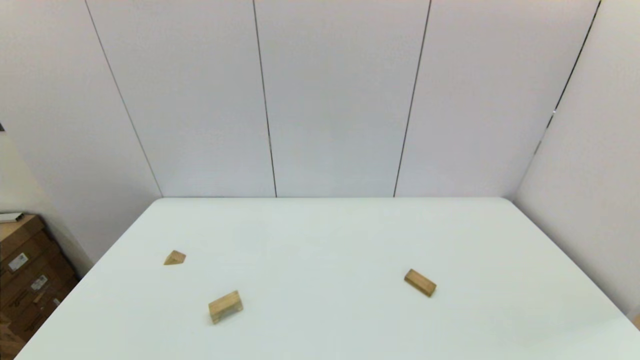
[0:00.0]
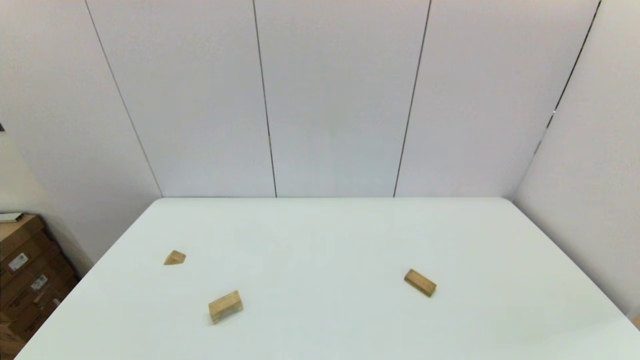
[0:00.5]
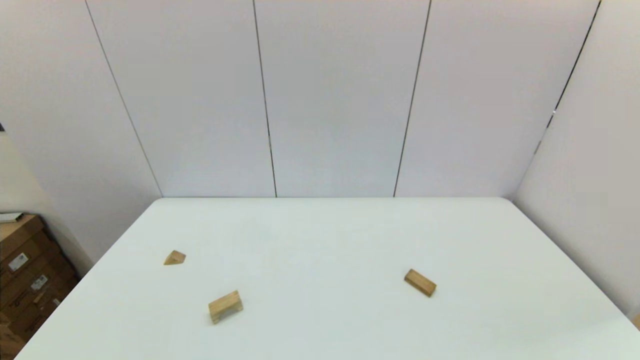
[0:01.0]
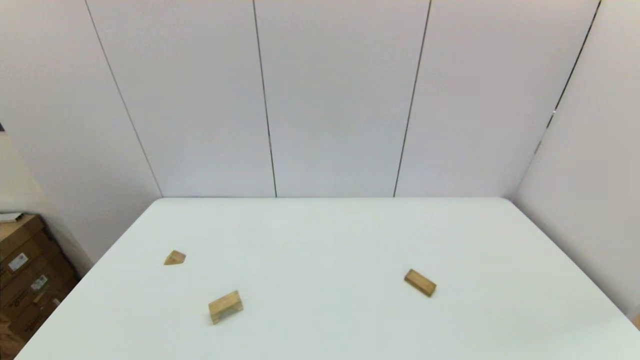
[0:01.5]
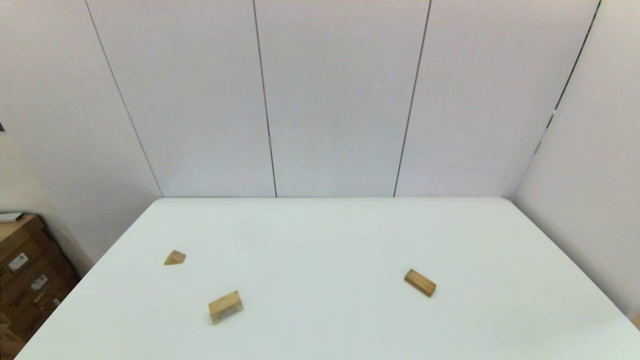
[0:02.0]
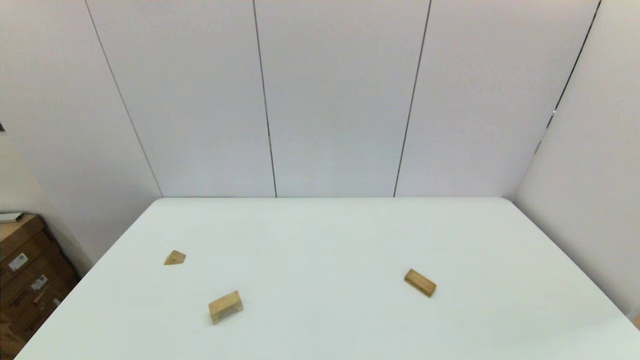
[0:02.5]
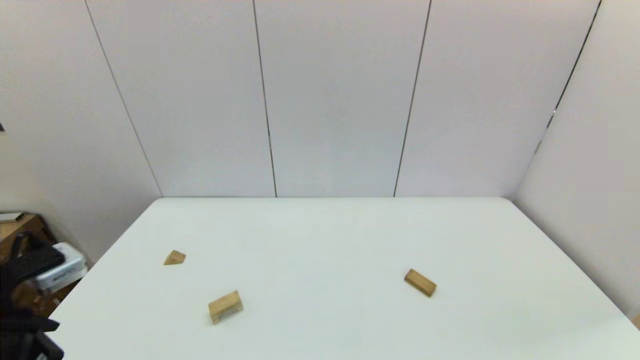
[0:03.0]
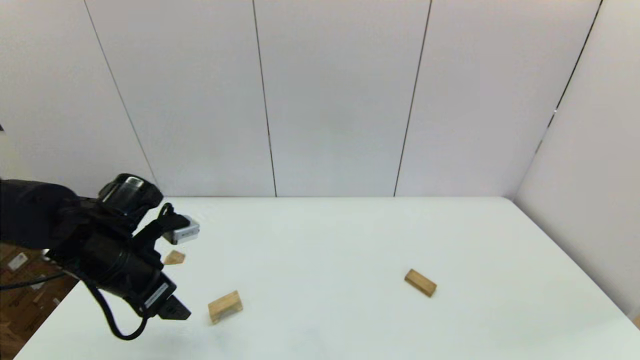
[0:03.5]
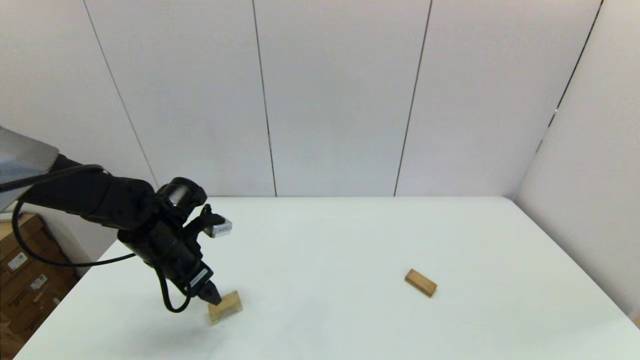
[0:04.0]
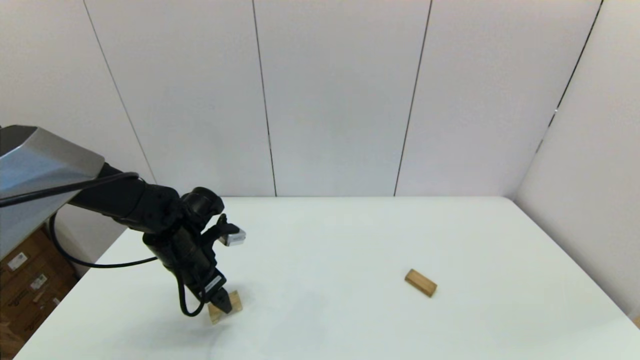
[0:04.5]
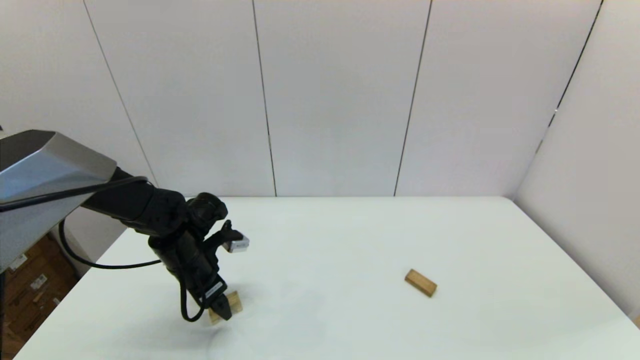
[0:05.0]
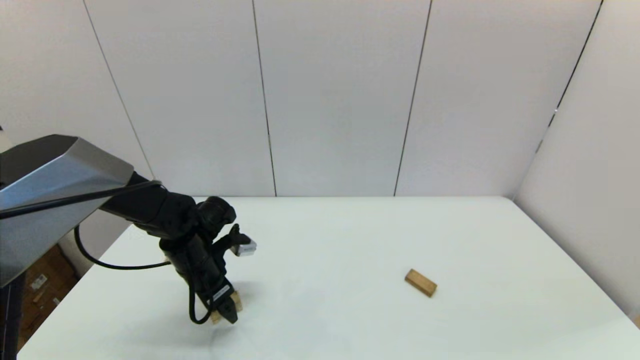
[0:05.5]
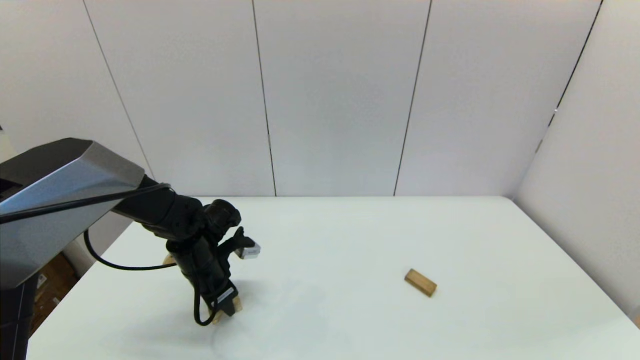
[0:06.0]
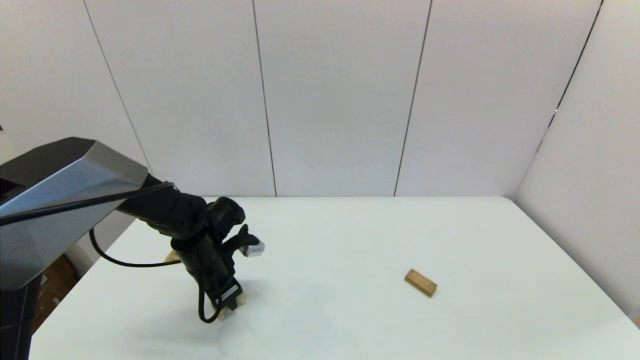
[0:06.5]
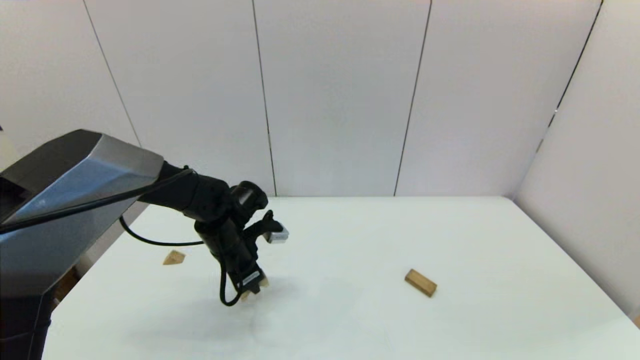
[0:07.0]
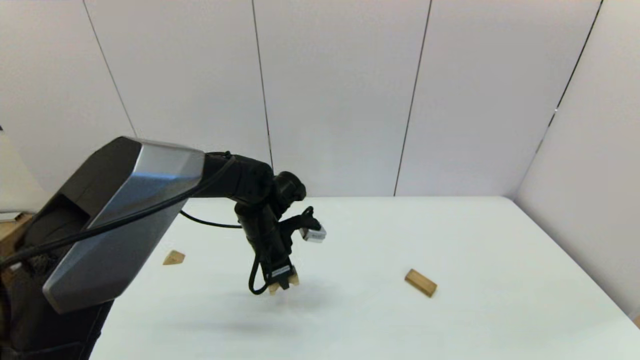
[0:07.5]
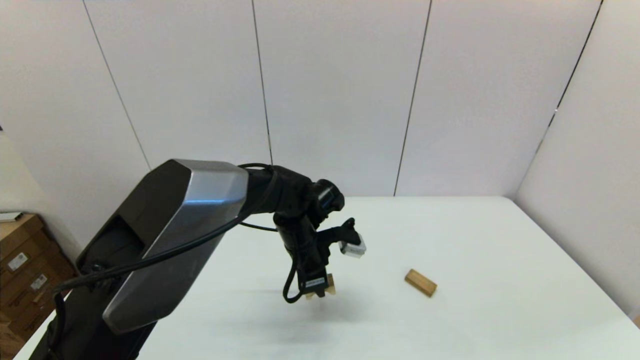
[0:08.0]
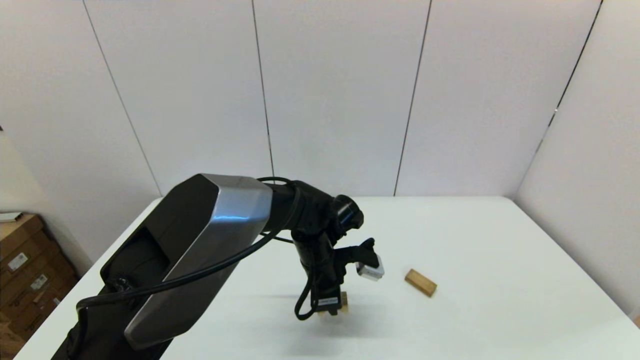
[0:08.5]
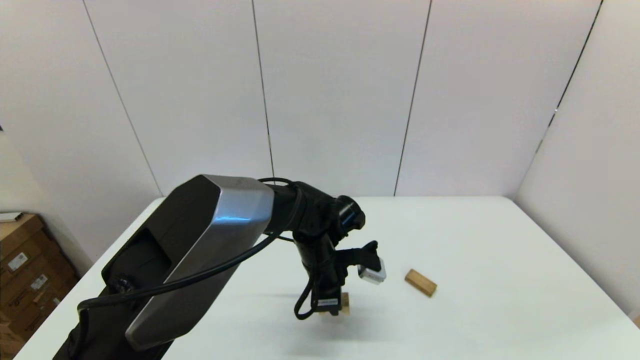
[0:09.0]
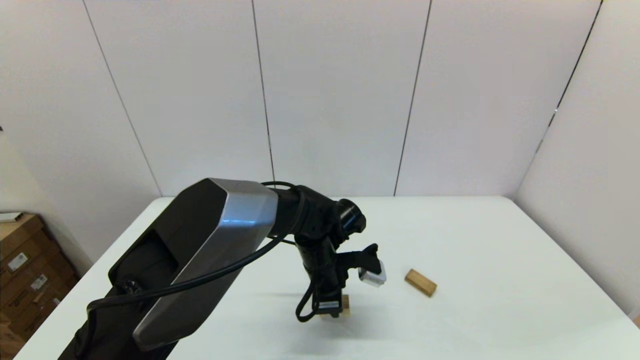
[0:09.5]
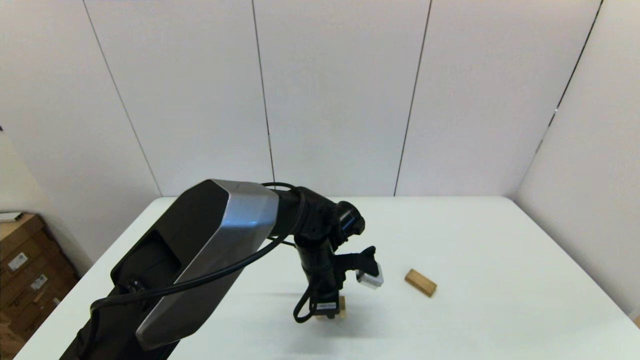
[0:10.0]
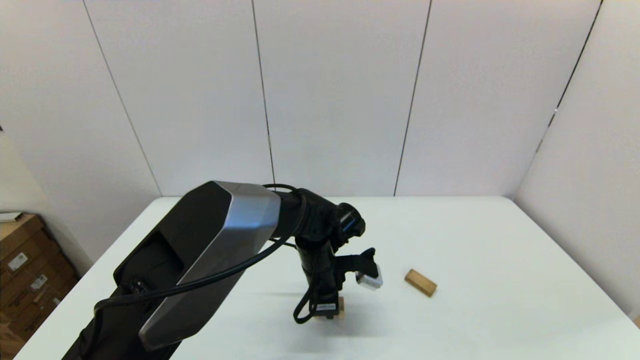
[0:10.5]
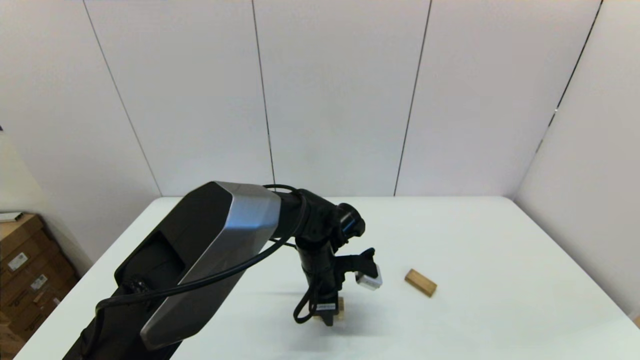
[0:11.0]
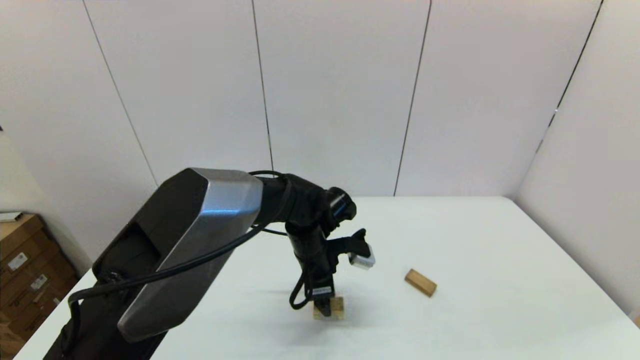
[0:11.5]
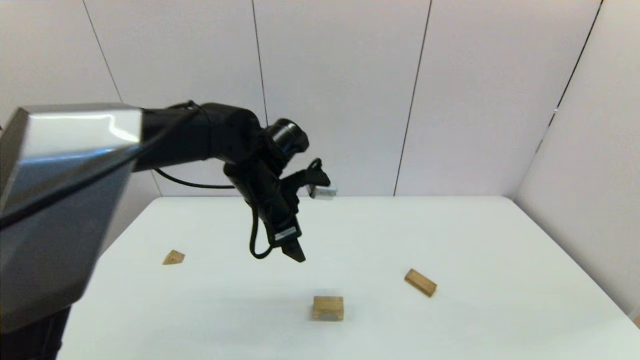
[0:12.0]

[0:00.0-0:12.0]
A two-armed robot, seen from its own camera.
Task of the whole recording: place the arched building blocks in the center of the table, set up the rectangular building blocks, and then set up the triangular building blocks.
Step, 3.0 to 6.0 s: Grasp the arch-shaped block with the left gripper.
Step, 6.5 to 11.0 s: Place the arch-shaped block in the center of view with the left gripper.
2.0 to 4.0 s: The left gripper goes approximately 35 cm forward.
4.0 to 6.0 s: The left gripper moves roughly 5 cm, and closes its fingers.
6.0 to 8.0 s: The left gripper moves to the right, some 20 cm.
8.0 to 10.0 s: The grippers stay close to where they were, moving slightly.
10.0 to 12.0 s: The left gripper heads upward and to the left, covering some 20 cm, and opens its fingers.

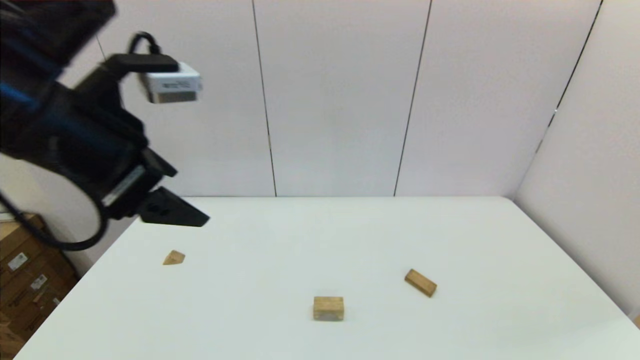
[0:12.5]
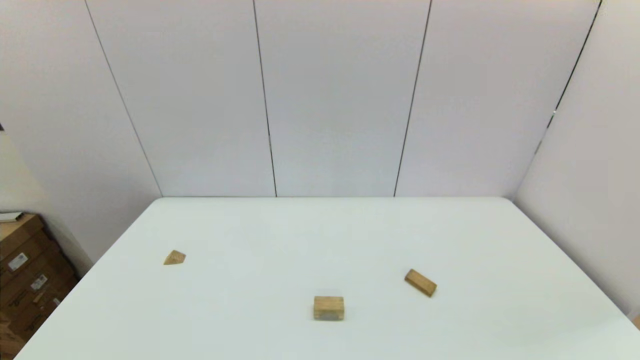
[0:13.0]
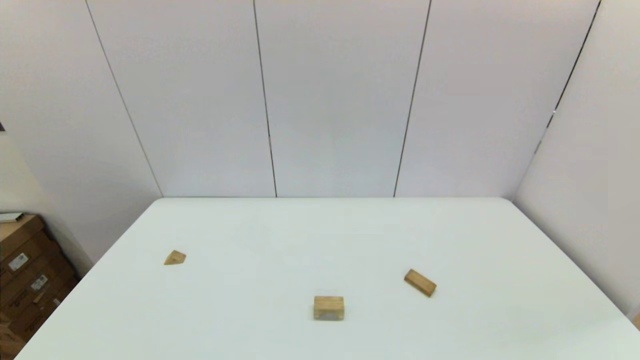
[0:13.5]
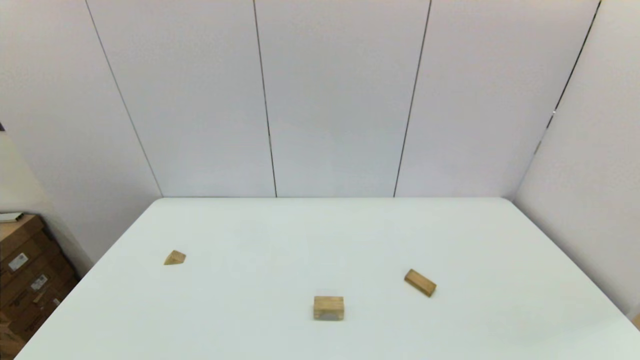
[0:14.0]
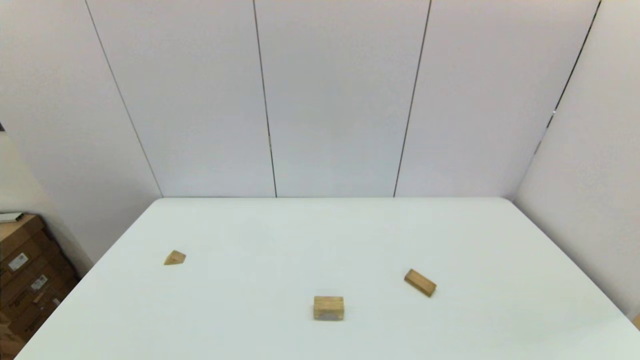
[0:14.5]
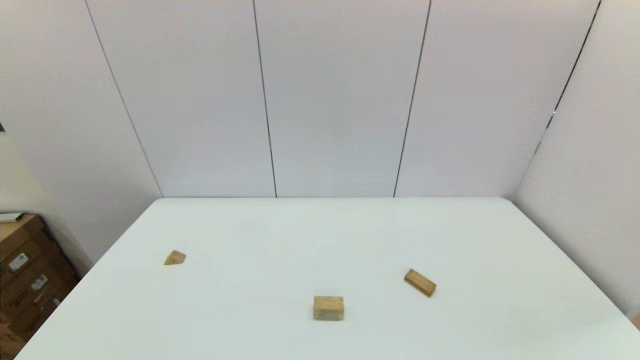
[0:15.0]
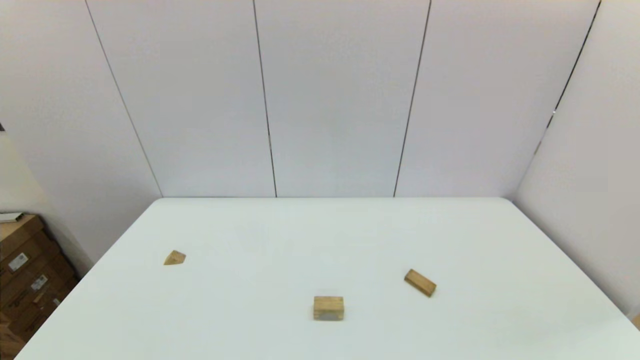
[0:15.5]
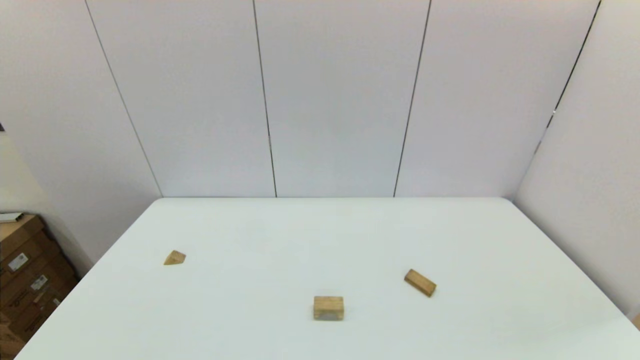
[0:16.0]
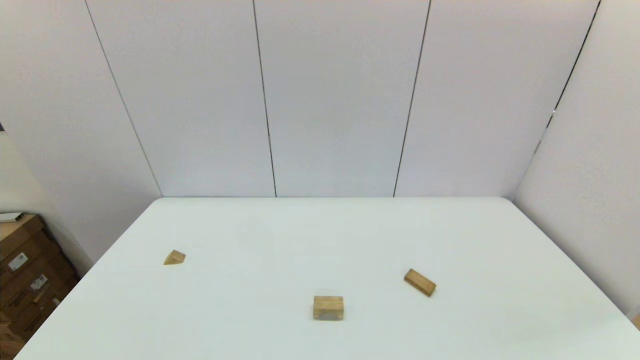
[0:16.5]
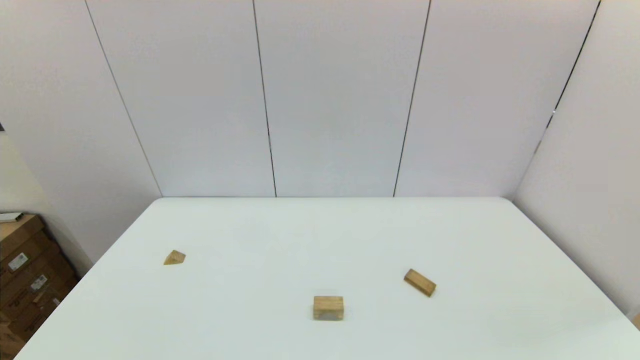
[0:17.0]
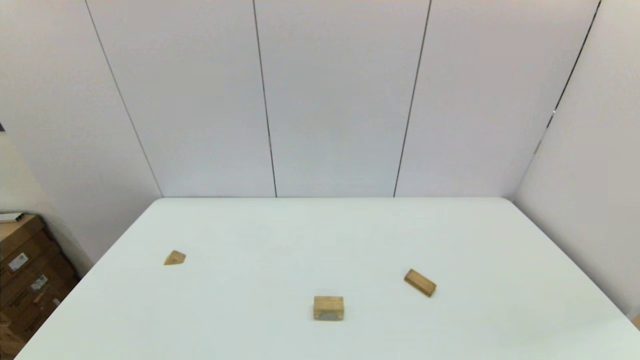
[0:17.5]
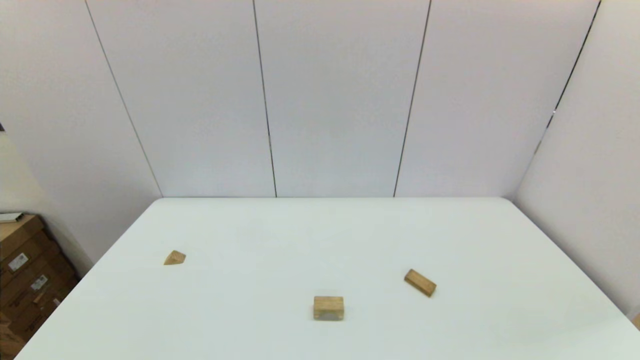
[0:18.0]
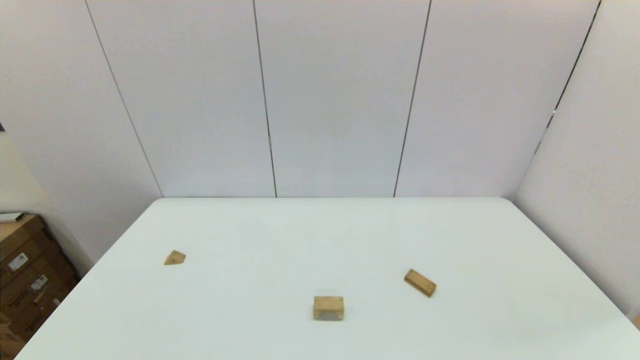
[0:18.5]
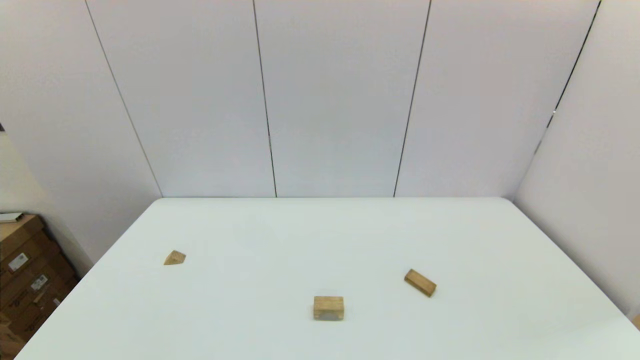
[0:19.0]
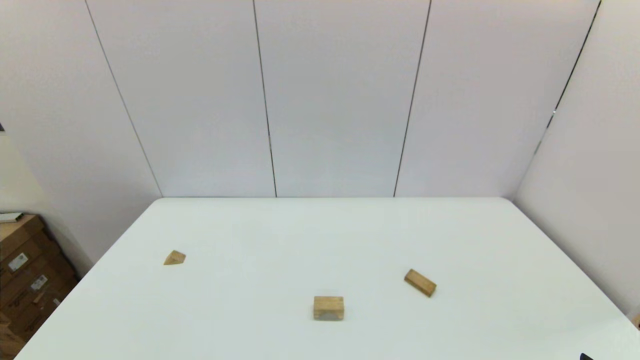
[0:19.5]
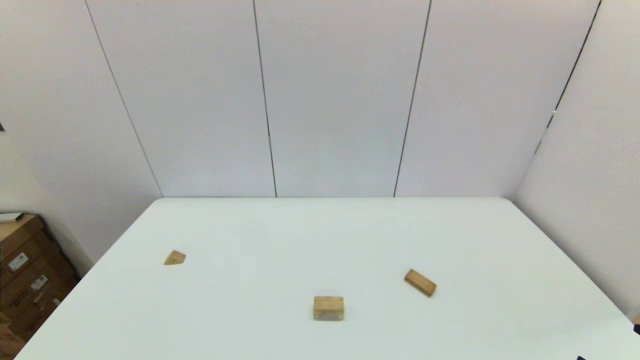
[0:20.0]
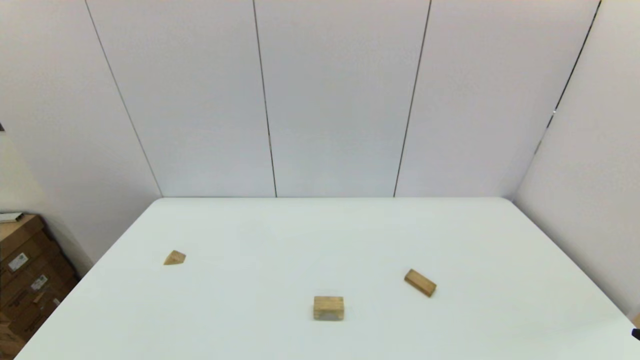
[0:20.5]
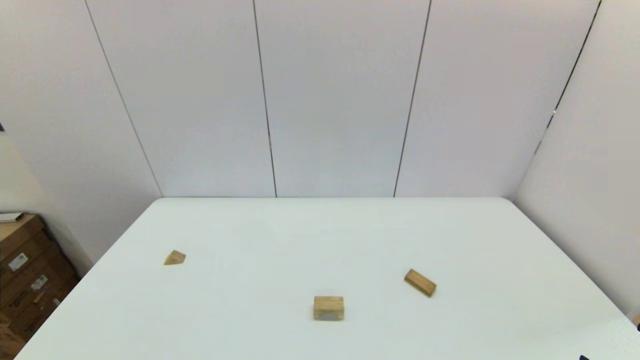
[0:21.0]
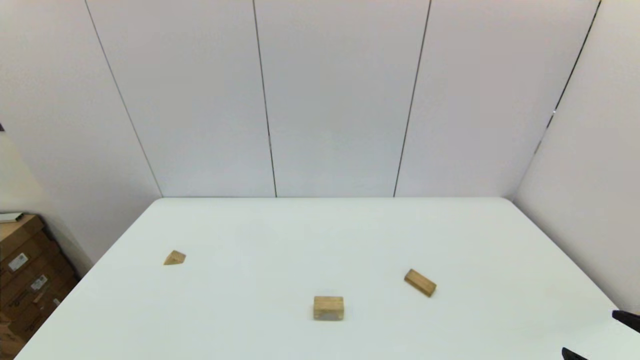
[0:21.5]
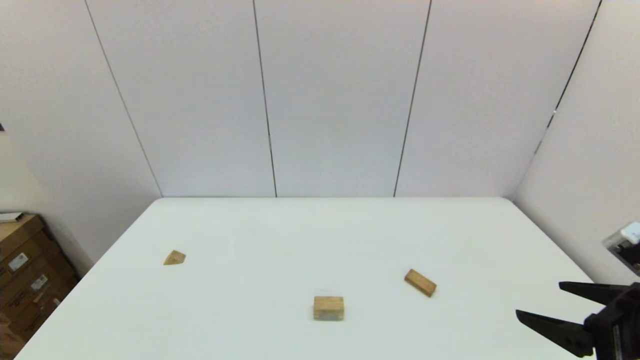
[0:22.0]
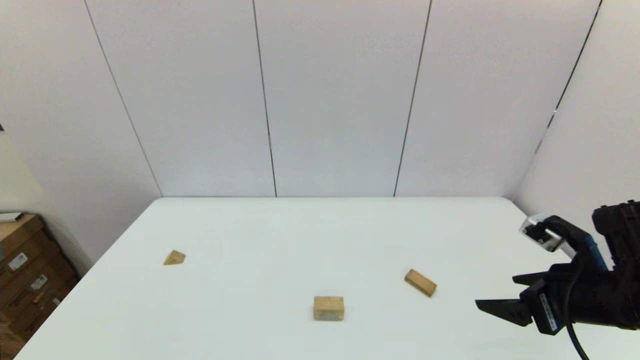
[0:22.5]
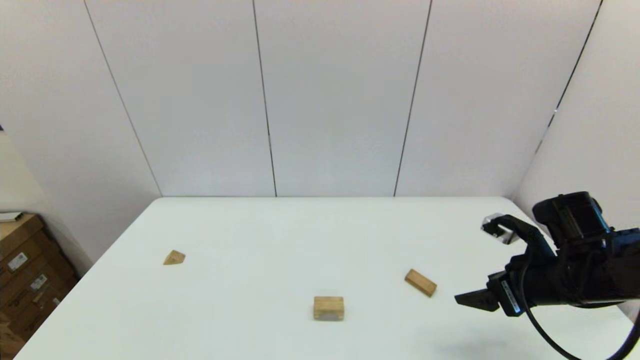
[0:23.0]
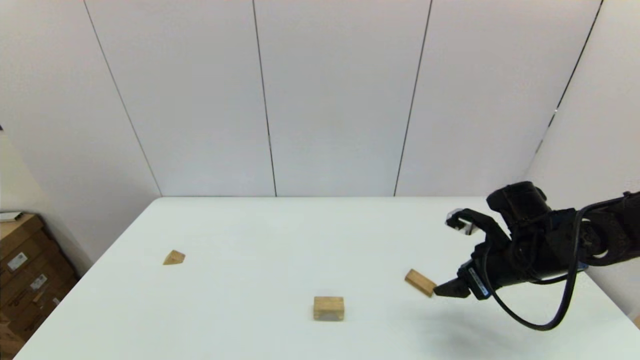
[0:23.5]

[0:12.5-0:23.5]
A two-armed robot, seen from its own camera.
Task of the whole recording: place the arched building blocks in the center of the table, set up the rectangular building blocks, and then set up the triangular building blocks.
12.5 to 14.5 s: The left gripper moves backward and downward, about 35 cm.
21.5 to 23.5 s: The right gripper travels forward by some 25 cm.
